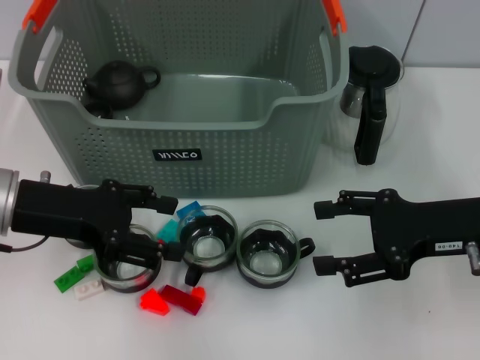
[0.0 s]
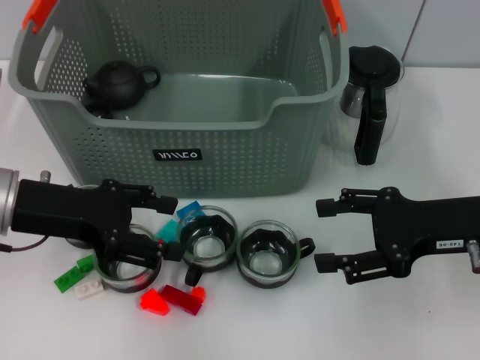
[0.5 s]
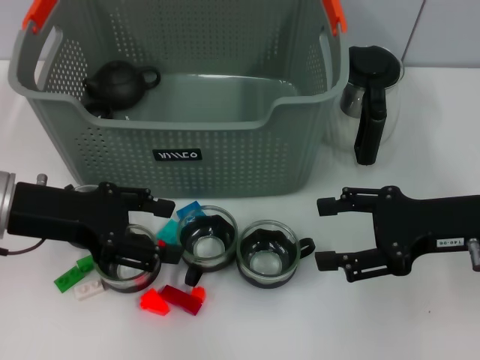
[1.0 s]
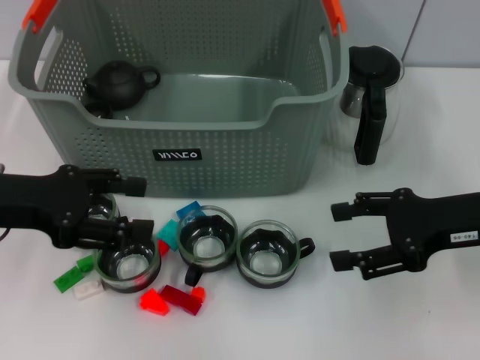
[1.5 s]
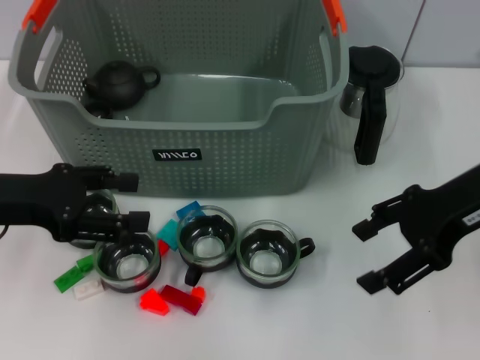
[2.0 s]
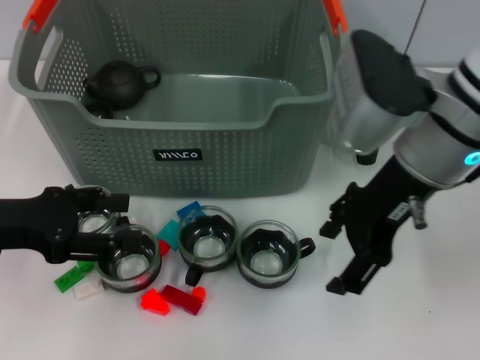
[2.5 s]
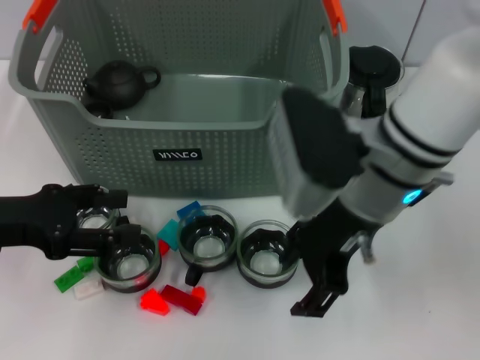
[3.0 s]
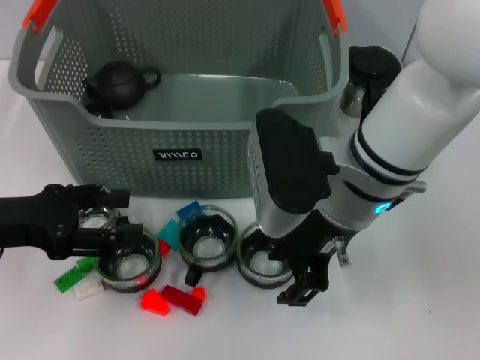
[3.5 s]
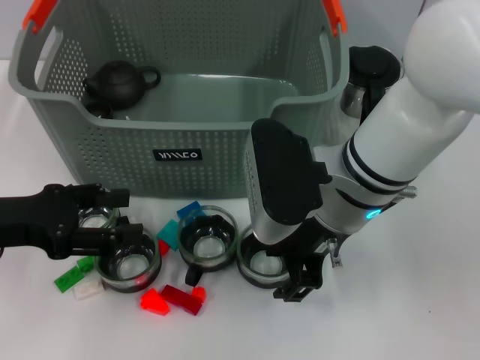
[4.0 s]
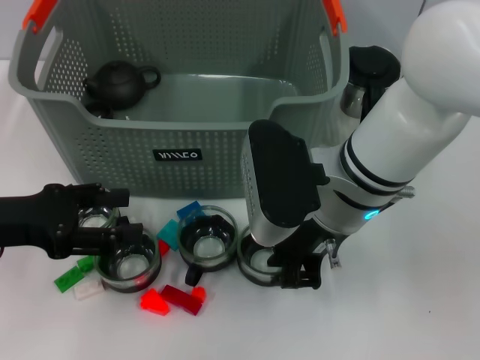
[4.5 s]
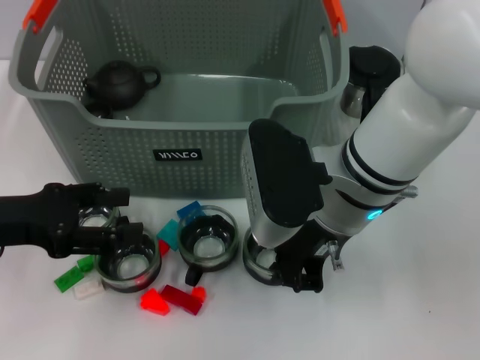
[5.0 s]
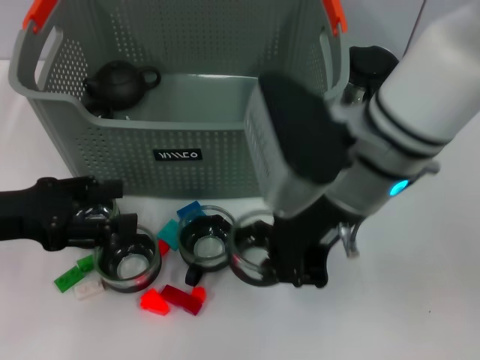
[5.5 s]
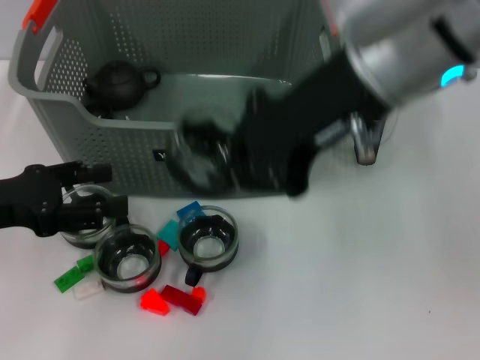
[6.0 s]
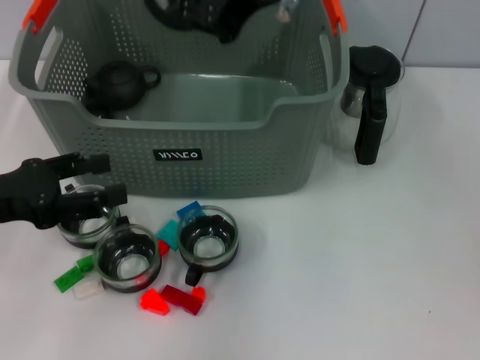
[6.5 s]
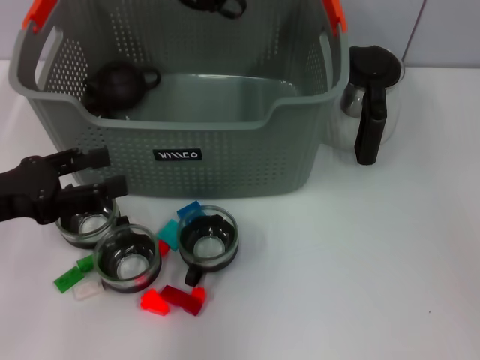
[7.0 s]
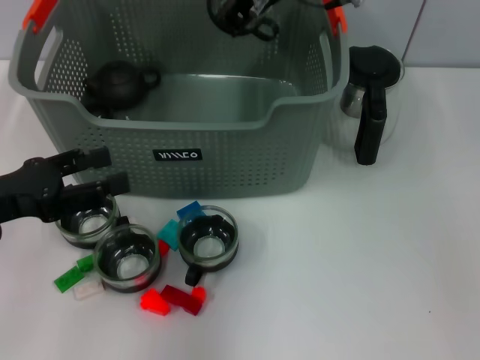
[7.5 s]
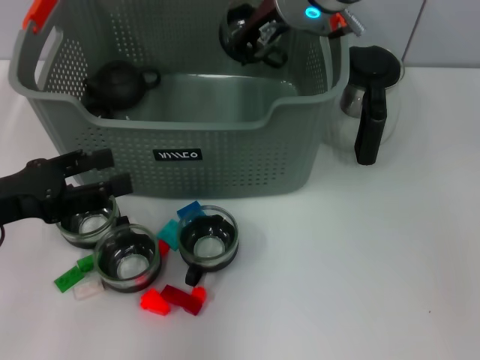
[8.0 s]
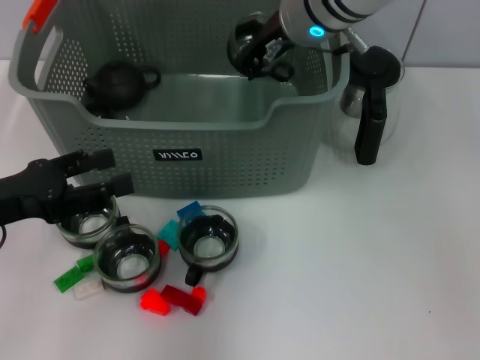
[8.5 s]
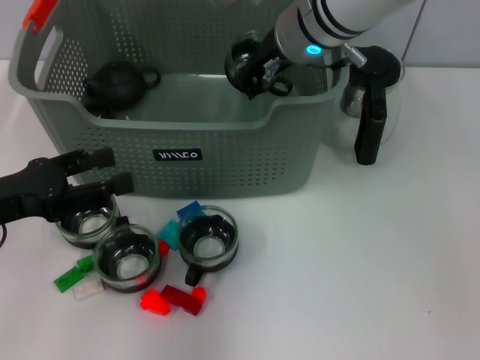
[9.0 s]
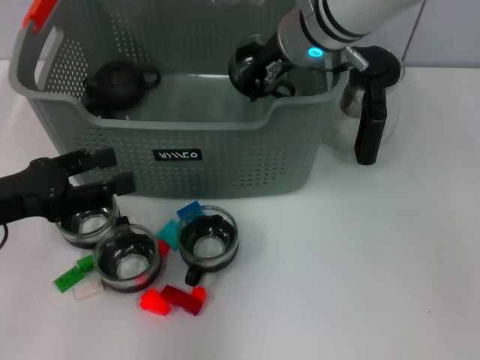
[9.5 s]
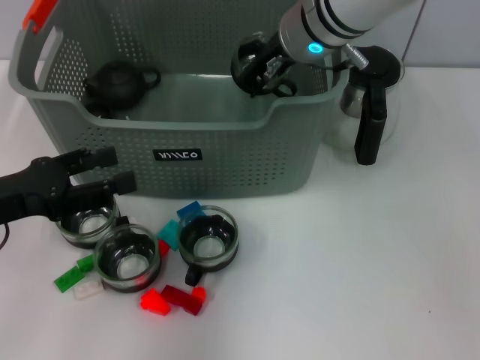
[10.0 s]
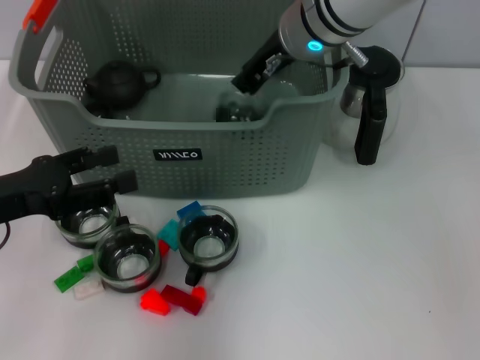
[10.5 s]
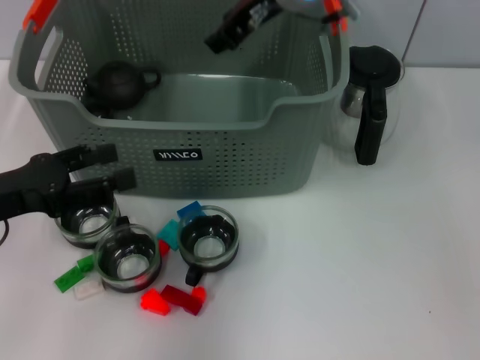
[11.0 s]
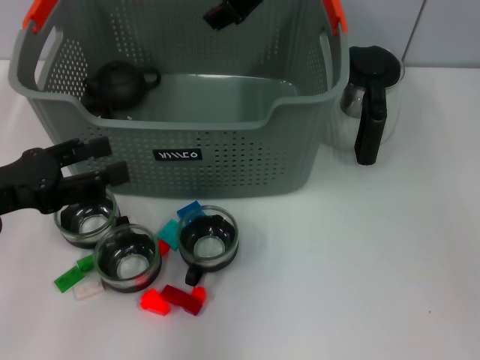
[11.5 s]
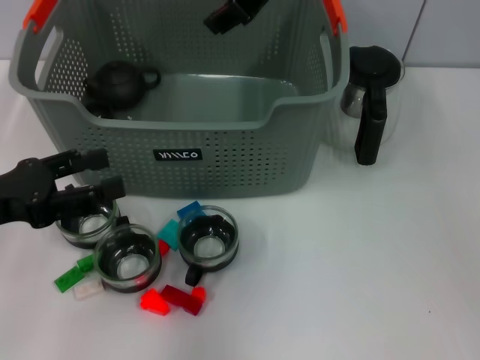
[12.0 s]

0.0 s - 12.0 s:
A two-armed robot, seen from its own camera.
Task of the whole recording: pick up the teacup on the table and place it into the storage bin, pick up the block on the table and place it into the storage bin.
Step, 1.0 s - 4.5 s: Grasp the cup with right gripper.
Step, 5.0 s - 10.5 s: Place the cup in the storage box with right gripper.
0.0 s - 2.0 s: The right gripper is displaced upward by some 10 cm.
2.0 s - 4.0 s: The right gripper is displaced to the left by some 15 cm.
4.0 s - 6.0 s: The right gripper heads upward, covering about 15 cm, and closes.
6.0 s - 8.0 s: The right gripper moves forward and downward, roughly 15 cm.
8.0 s - 10.0 s: The grippers stay close to where they were, moving slightly.
10.0 s - 12.0 s: The right gripper heads upward, covering approximately 10 cm, and opens.

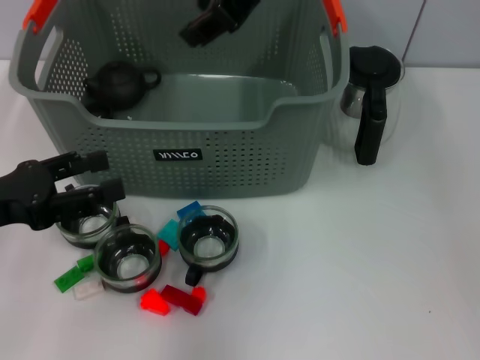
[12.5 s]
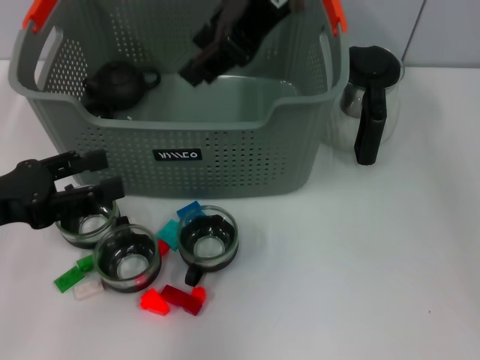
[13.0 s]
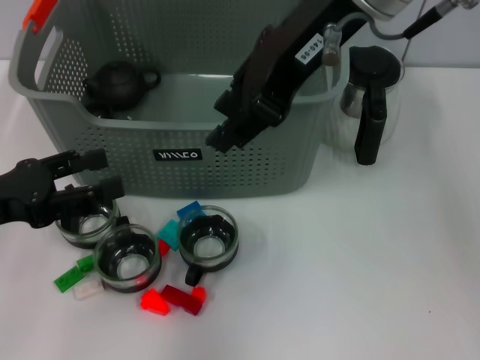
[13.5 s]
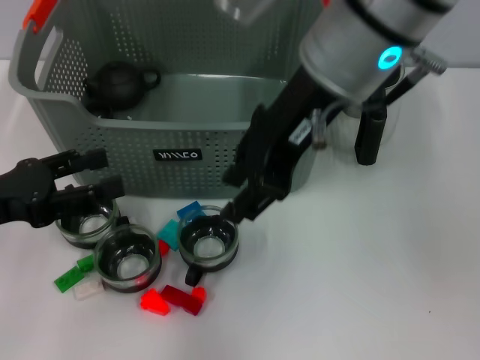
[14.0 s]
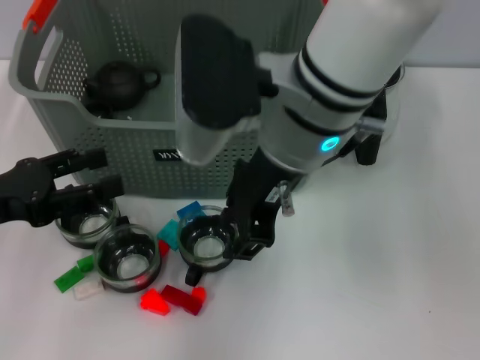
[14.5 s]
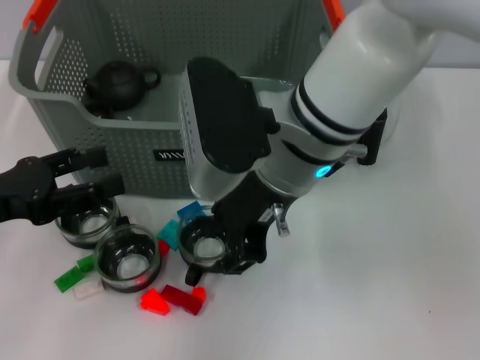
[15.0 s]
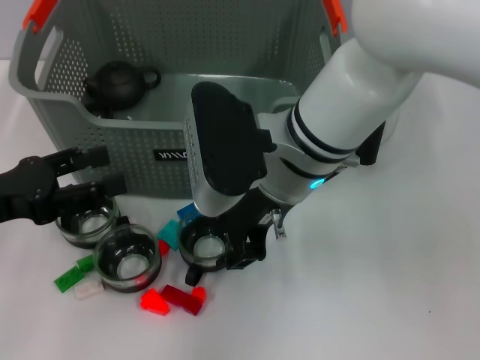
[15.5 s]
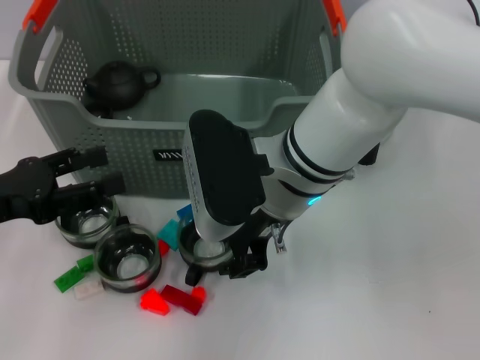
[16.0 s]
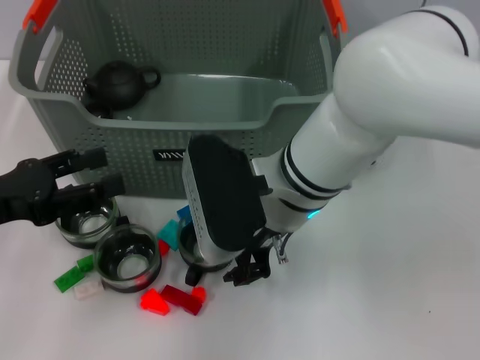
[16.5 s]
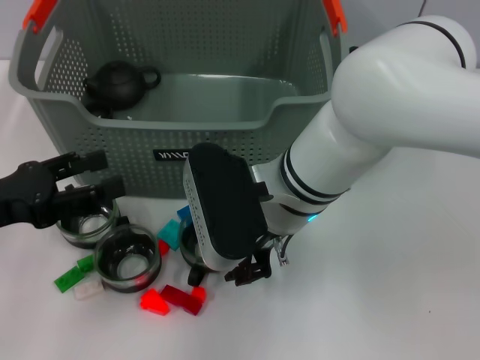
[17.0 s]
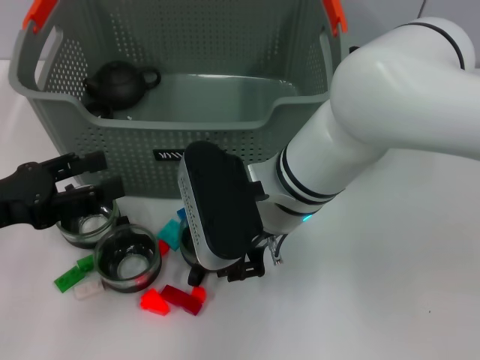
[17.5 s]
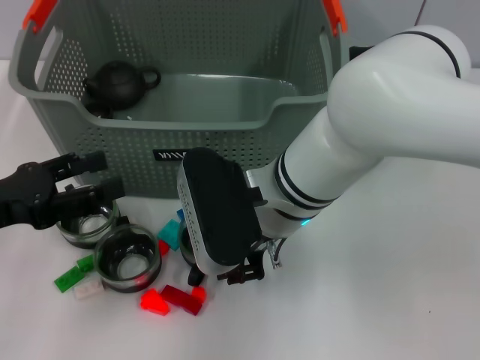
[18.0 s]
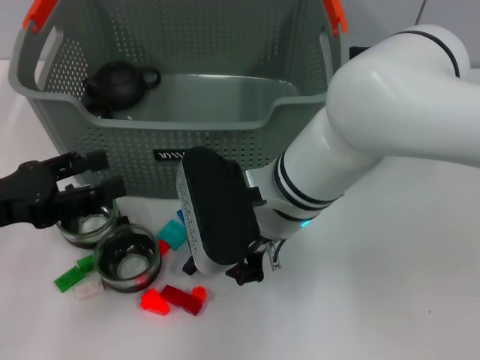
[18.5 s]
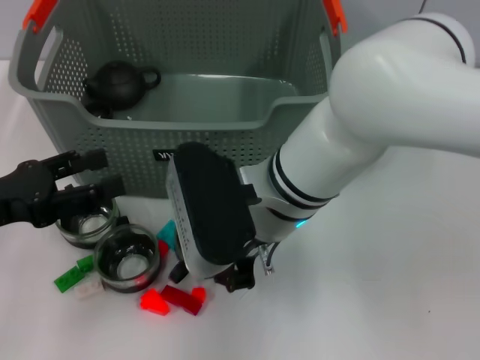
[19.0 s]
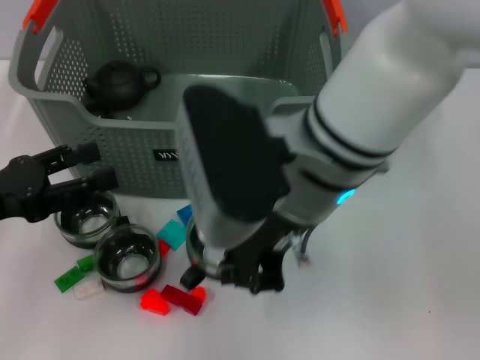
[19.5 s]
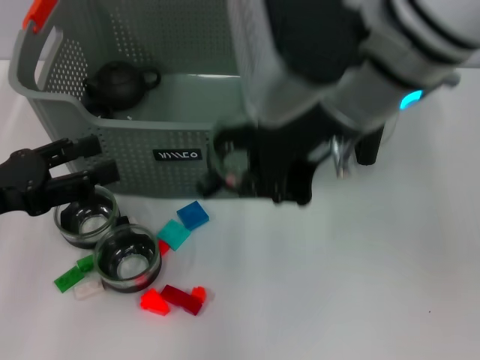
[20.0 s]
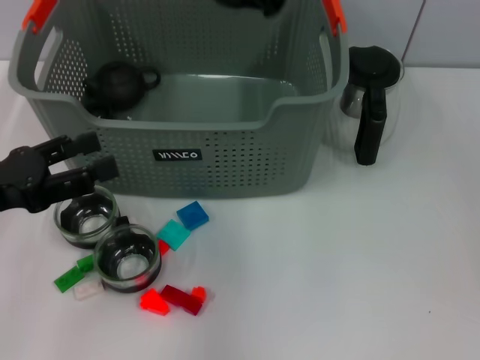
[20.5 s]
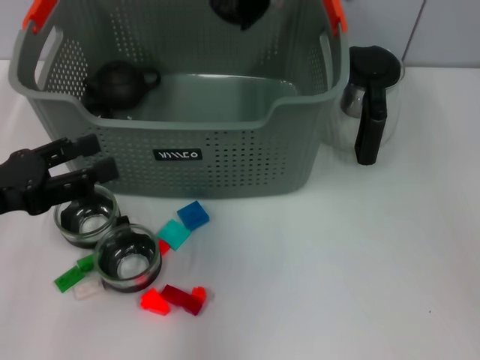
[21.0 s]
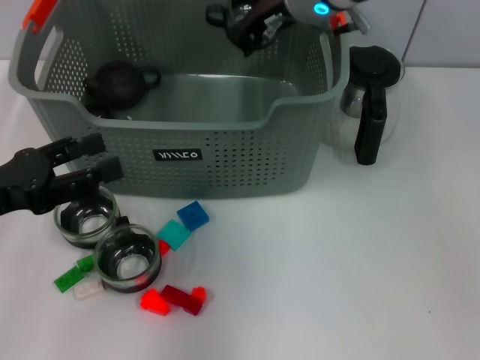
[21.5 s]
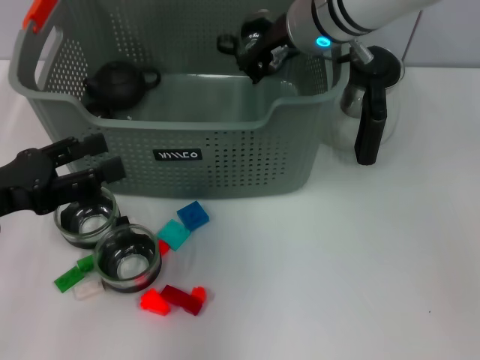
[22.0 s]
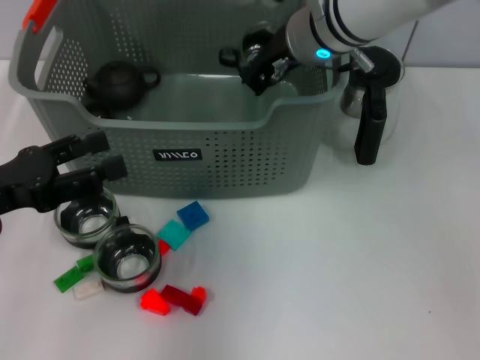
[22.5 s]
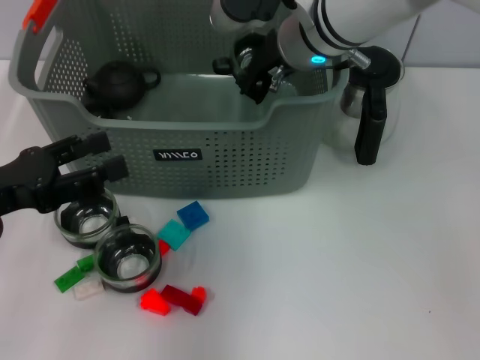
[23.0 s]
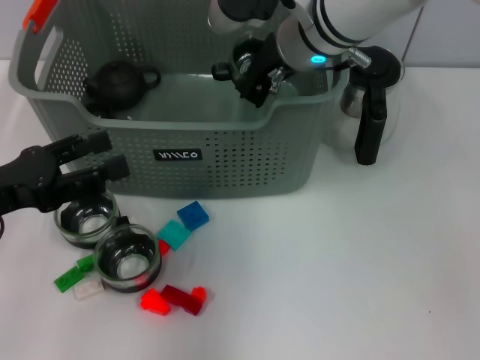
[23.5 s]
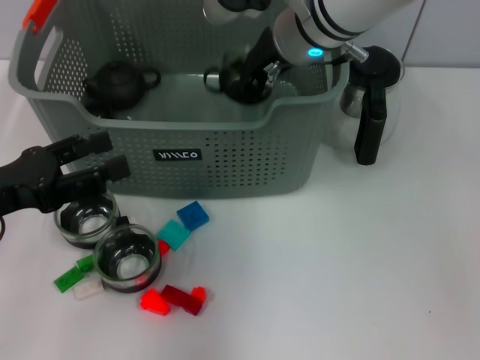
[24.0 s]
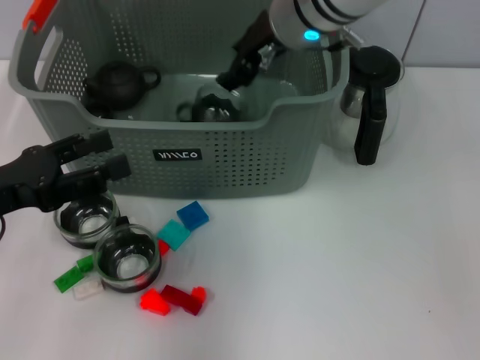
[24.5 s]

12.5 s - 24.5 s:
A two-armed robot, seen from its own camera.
Task of the whole recording: pick up the teacup on the table and place it into the storage bin, pick up the block on the table and place it into the storage bin.
Step, 12.5 s - 18.5 s: Grasp the cup with right gripper.
12.5 s - 14.5 s: The right gripper is displaced downward and backward by approximately 10 cm.
14.5 s - 16.5 s: The right gripper moves downward, approximately 10 cm.
16.5 s - 18.5 s: The right gripper closes its fingers.
18.5 s - 20.5 s: The right gripper is displaced upward by approximately 20 cm.
20.5 s - 22.5 s: The right gripper travels downward and forward by approximately 15 cm.
22.5 s - 24.5 s: The right gripper opens its fingers.

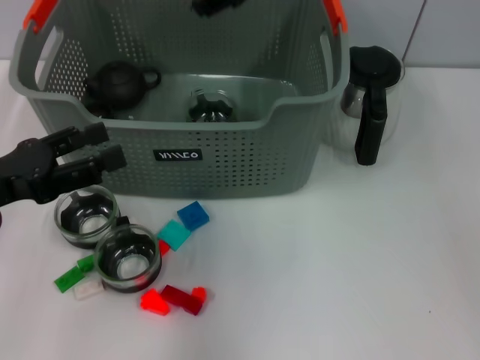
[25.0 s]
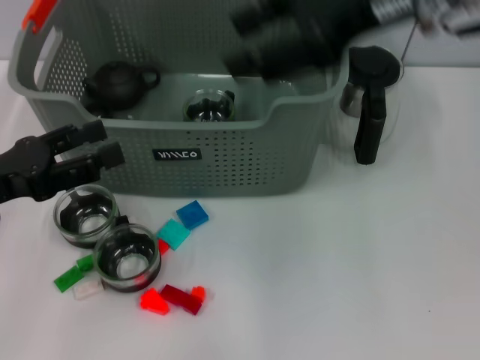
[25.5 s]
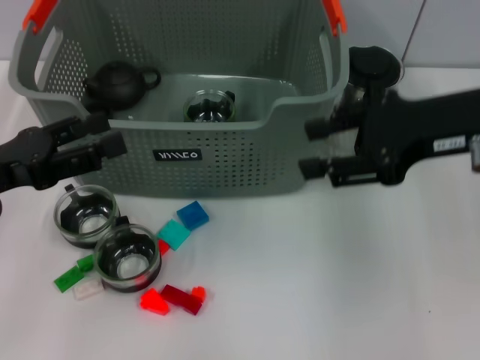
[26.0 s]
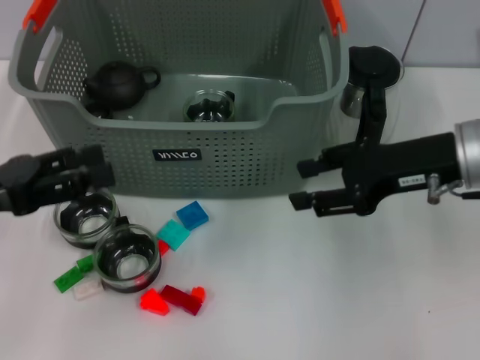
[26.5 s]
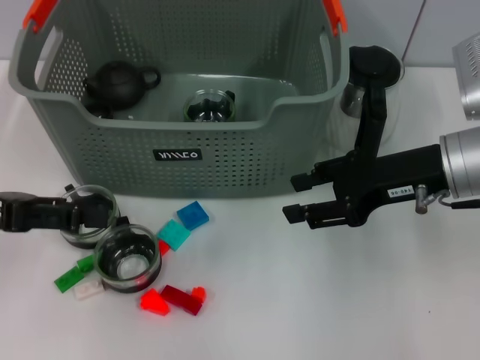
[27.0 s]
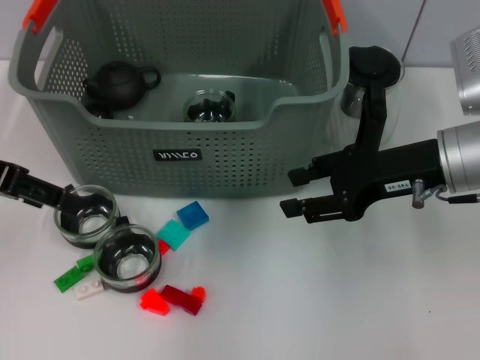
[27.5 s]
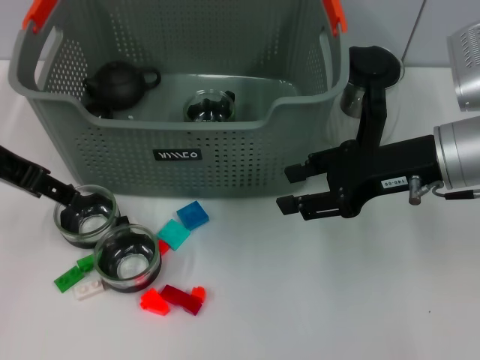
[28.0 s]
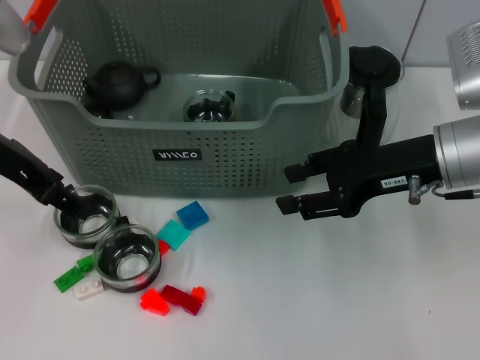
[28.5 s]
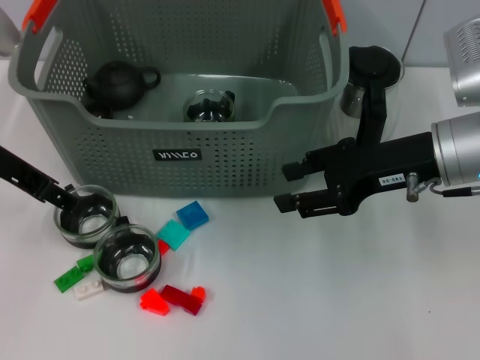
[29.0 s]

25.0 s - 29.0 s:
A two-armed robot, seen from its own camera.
Task of the whole recording: pick up the teacup on the table and place it into the storage bin, pick up the block on the table and place it into the storage bin.
25.0 s - 27.0 s: The right gripper shifts some 25 cm downward, to the right and backward.
27.0 s - 29.0 s: The left gripper shifts some 10 cm forward and to the right.
